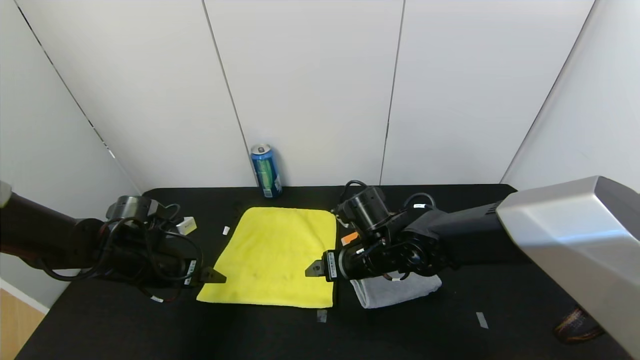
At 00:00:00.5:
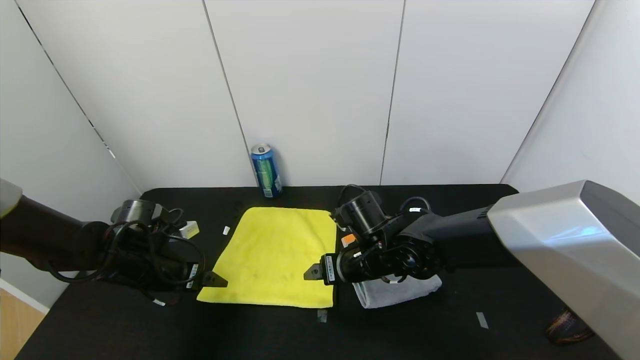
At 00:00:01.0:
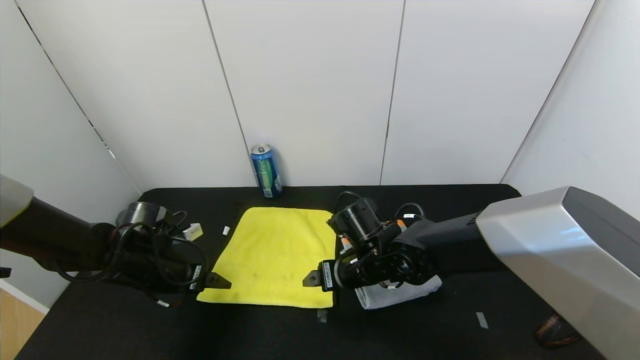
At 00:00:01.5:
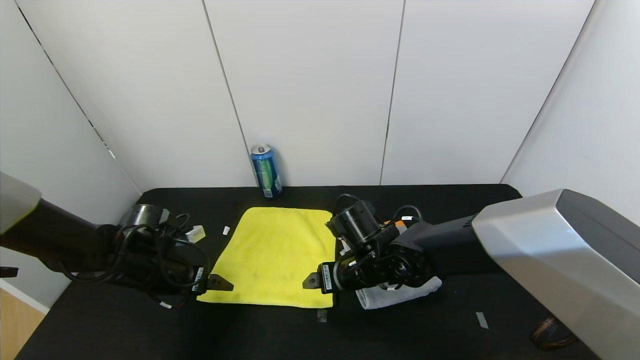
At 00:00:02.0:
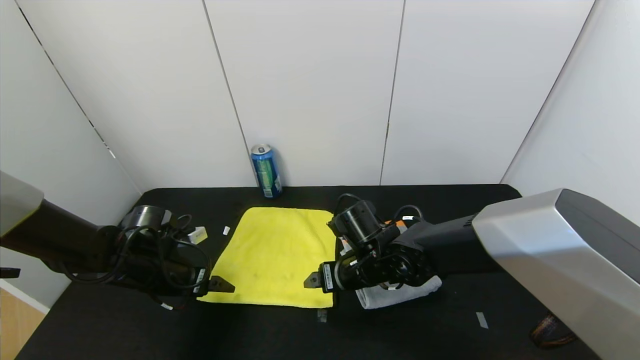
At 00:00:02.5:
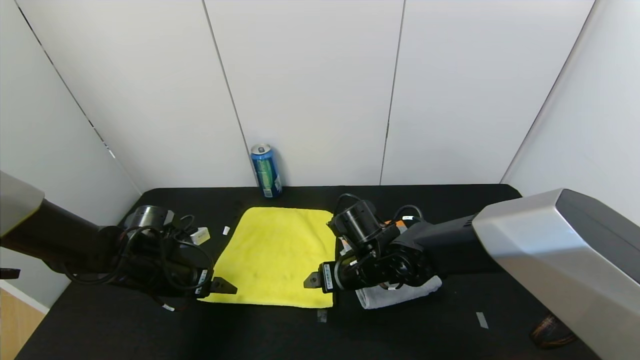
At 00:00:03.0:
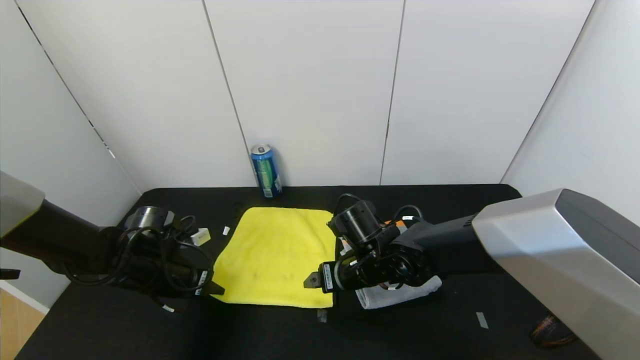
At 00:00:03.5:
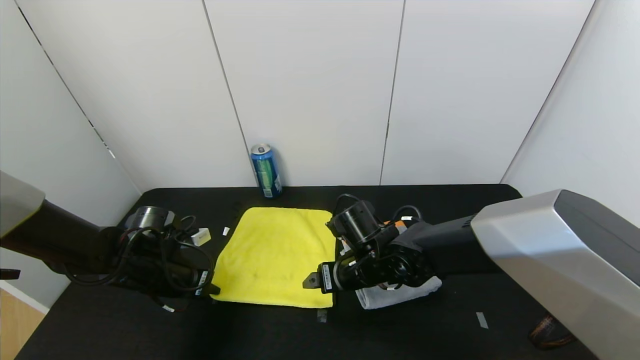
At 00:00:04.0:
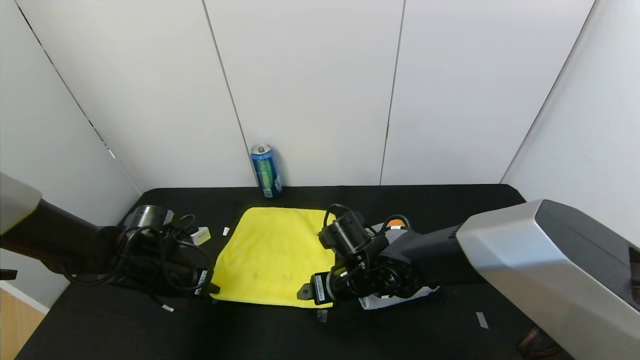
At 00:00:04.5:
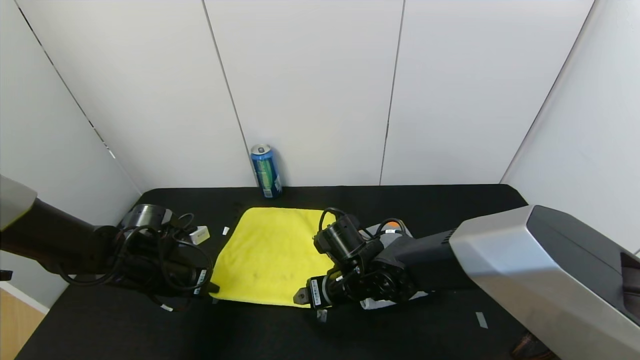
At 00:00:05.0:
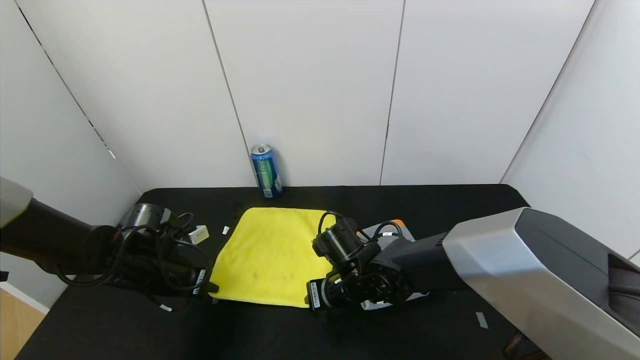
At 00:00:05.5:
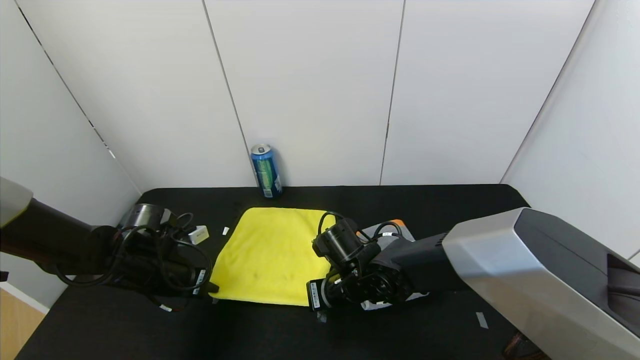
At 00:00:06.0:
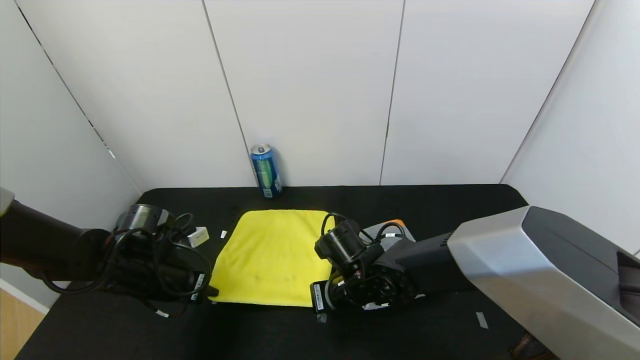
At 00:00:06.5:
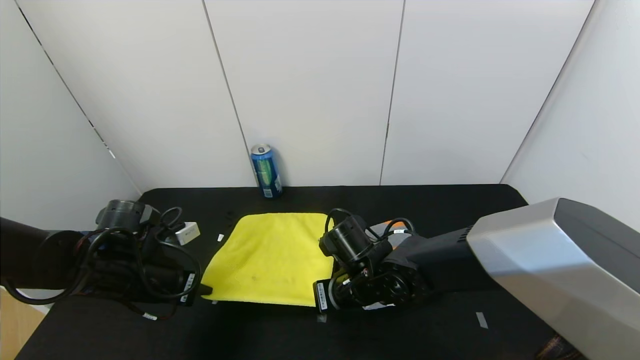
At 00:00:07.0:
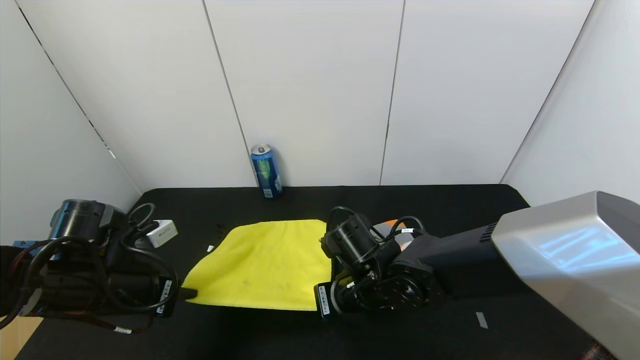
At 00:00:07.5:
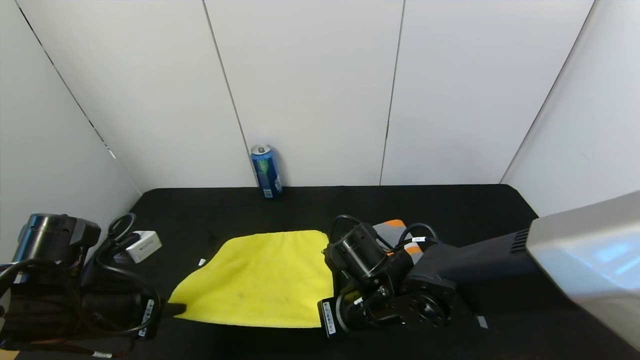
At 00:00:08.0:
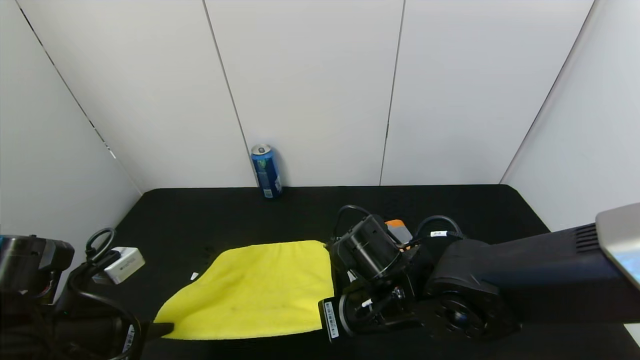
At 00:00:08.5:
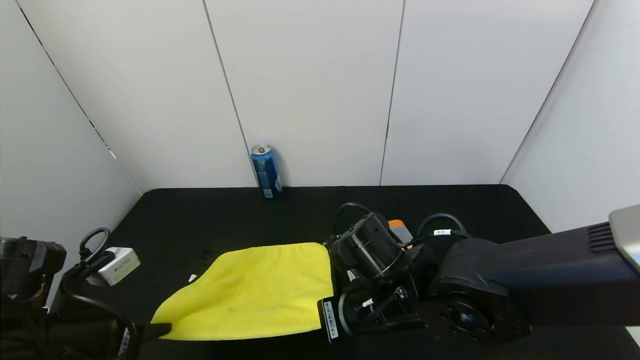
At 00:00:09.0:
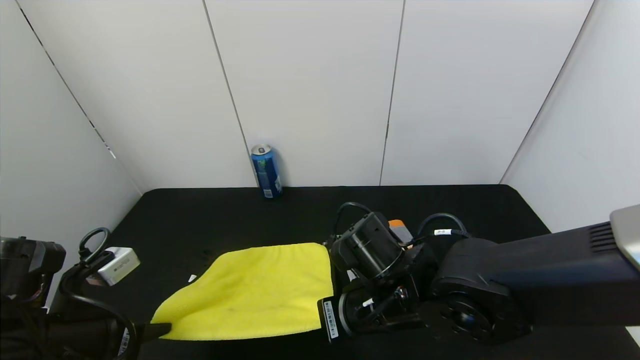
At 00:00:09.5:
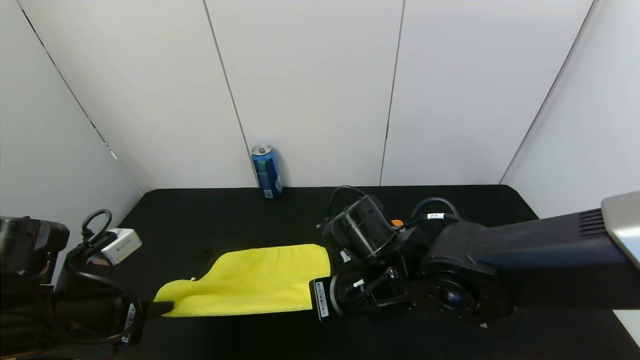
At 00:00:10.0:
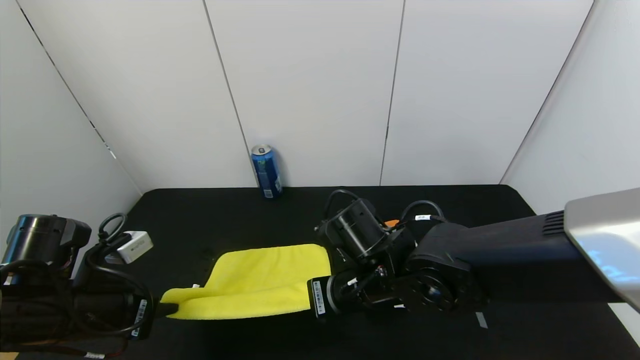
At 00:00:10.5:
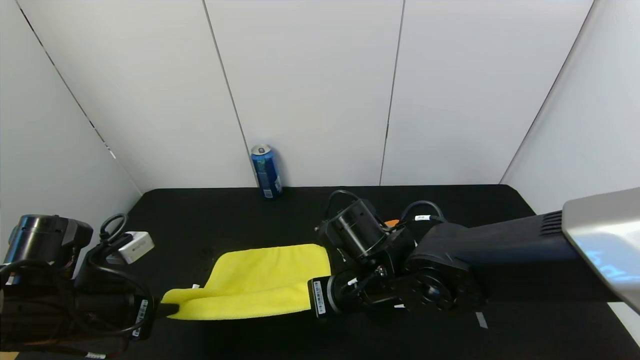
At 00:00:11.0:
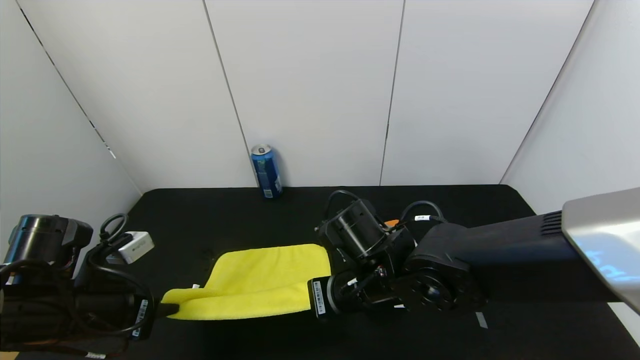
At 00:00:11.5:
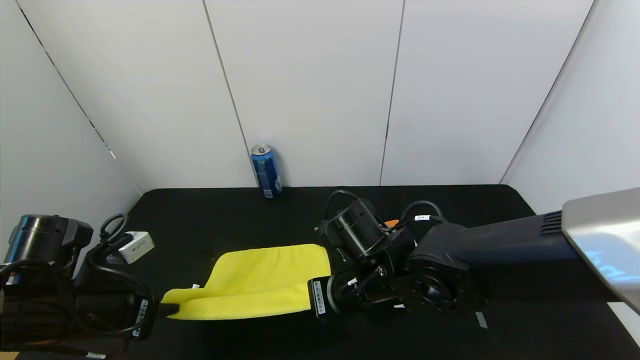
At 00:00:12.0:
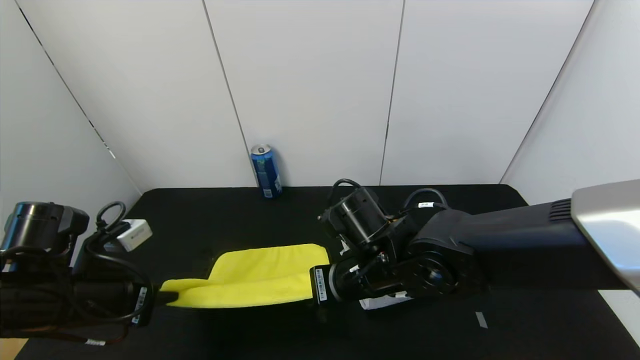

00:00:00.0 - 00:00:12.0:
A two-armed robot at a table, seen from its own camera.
Task of the whole recording: Use the gripper to fold the yellow towel and grey towel in half twice,then put the yellow towel on the grey towel.
00:00:00.0 - 00:00:02.0: The grippers make only small movements.
00:00:02.0 - 00:00:04.0: The left gripper closes its fingers.
00:00:04.0 - 00:00:06.0: The right gripper closes up.
00:00:06.0 - 00:00:08.0: The left gripper shifts roughly 10 cm backward and upward. The right gripper shifts by roughly 5 cm.
00:00:08.0 - 00:00:12.0: The grippers make only small movements.

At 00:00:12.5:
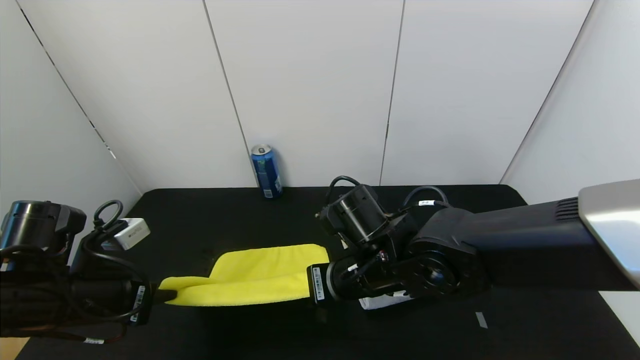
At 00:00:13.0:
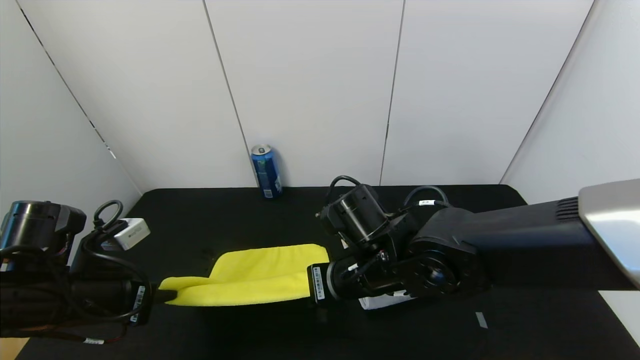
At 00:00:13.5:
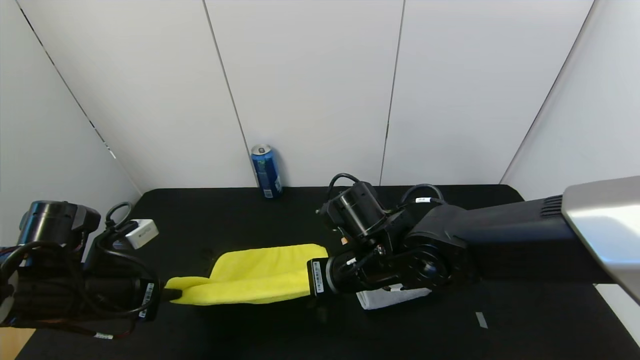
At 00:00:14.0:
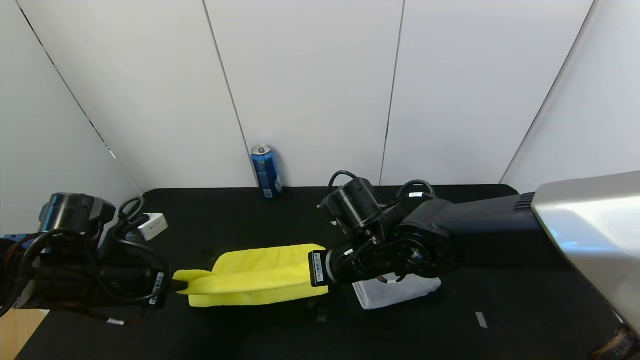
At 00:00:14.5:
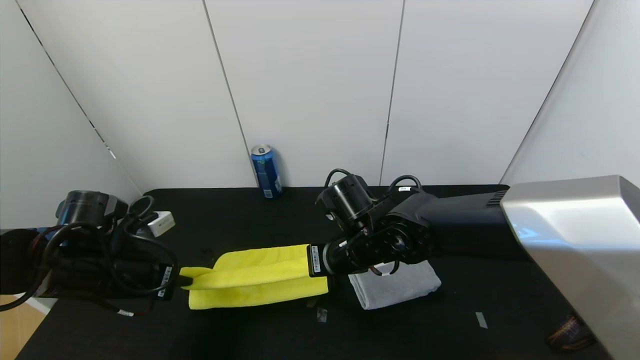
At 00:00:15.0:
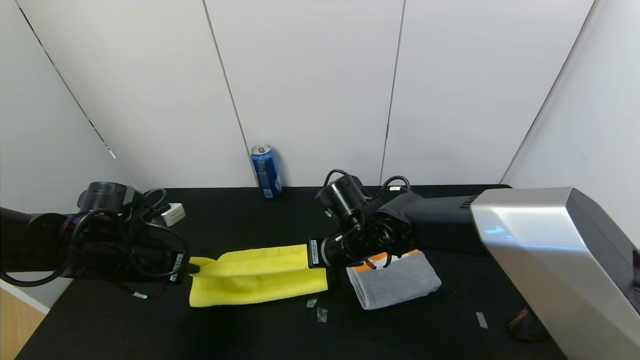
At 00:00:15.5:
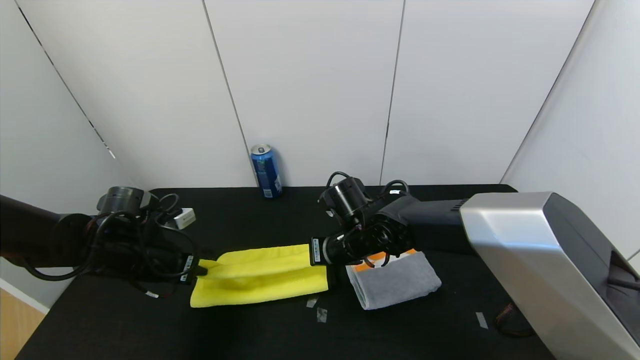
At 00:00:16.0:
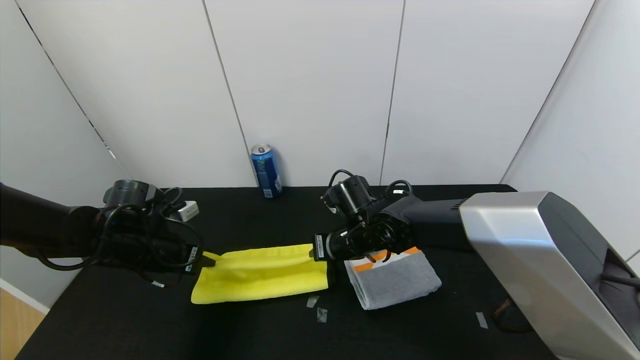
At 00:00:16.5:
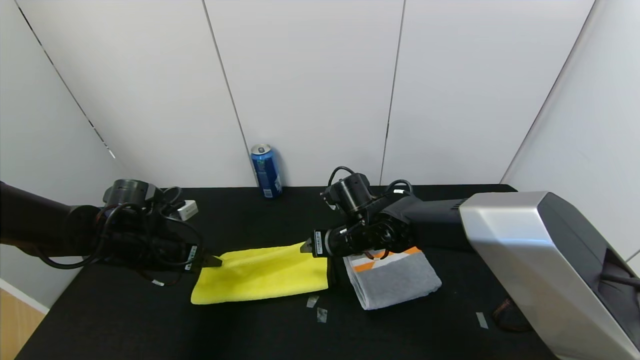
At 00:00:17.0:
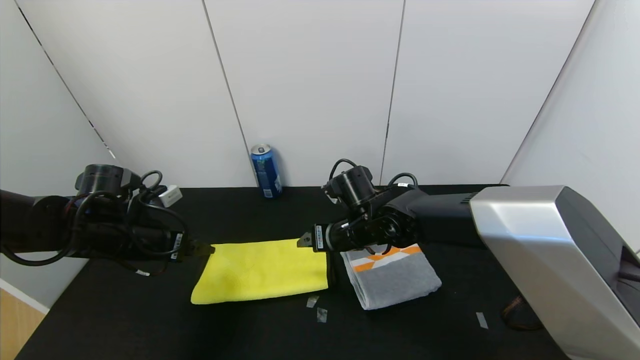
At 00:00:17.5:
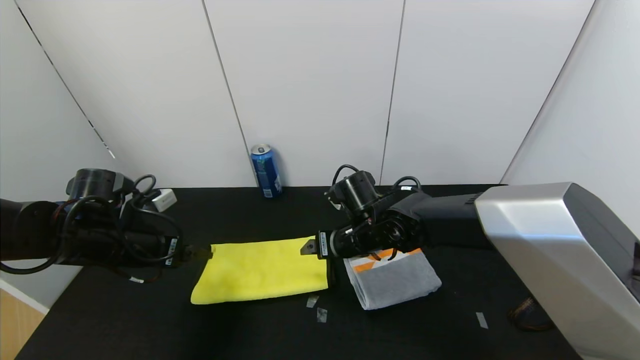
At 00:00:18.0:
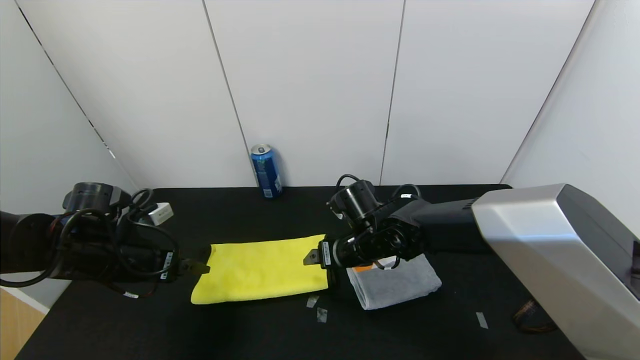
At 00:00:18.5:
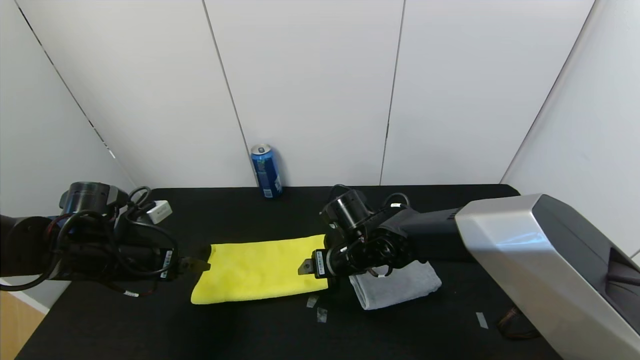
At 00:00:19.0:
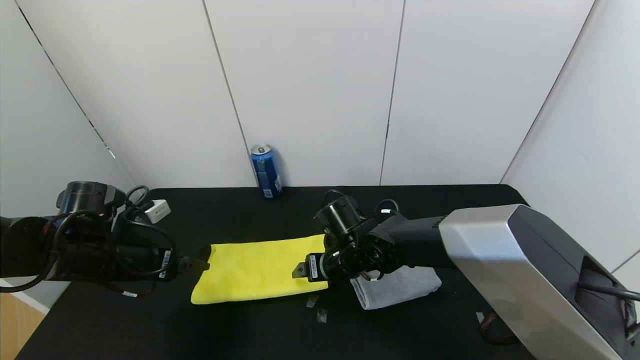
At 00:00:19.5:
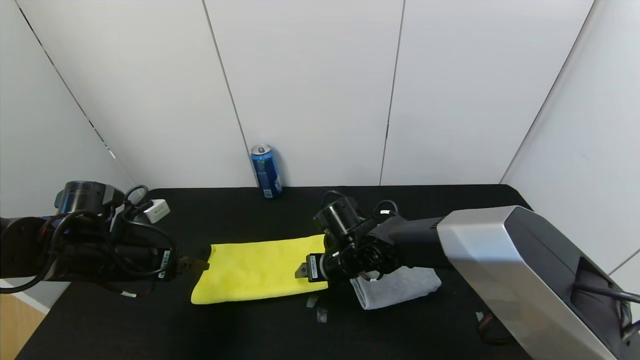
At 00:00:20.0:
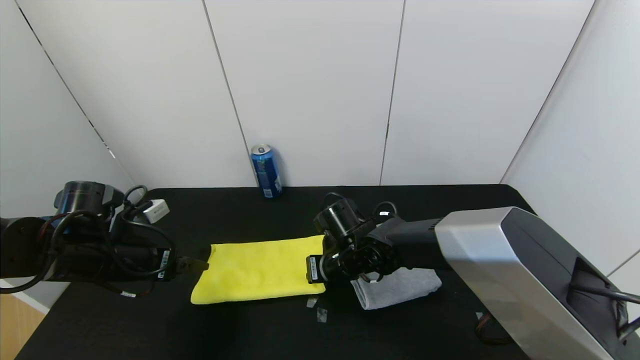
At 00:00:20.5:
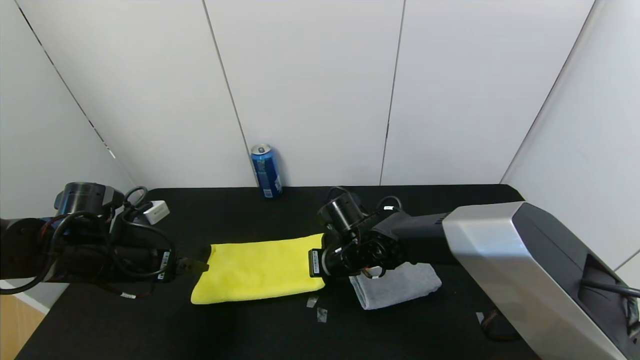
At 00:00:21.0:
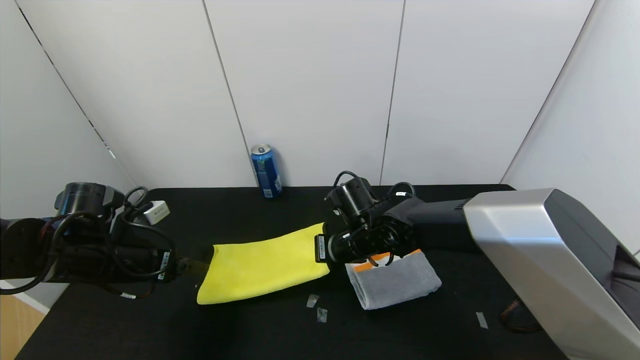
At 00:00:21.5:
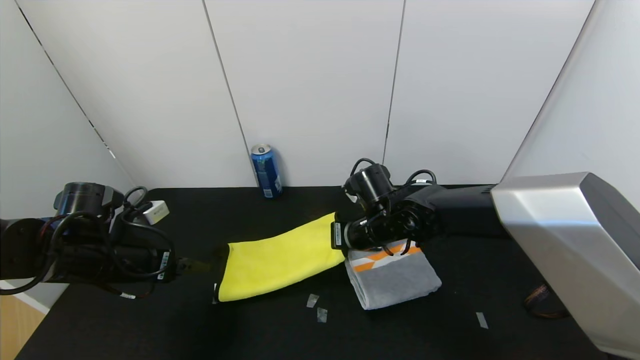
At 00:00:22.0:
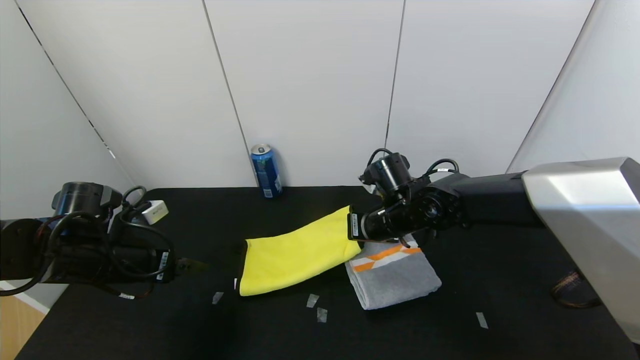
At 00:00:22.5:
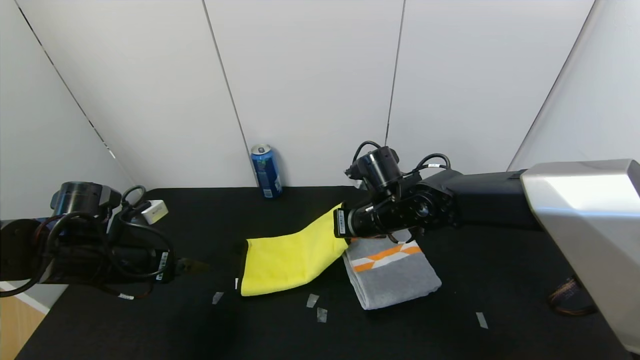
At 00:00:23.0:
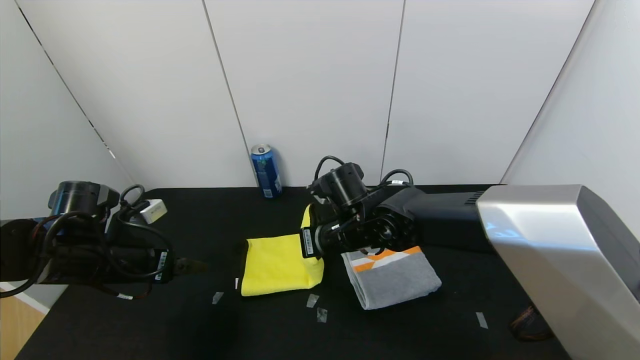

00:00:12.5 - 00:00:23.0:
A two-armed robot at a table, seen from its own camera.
Task of the whole recording: Use the gripper to fold the yellow towel and grey towel in half twice,then put the yellow towel on the grey towel.
Step, 00:00:12.5 - 00:00:16.5: Fold the yellow towel upwards with the left gripper.
Step, 00:00:12.5 - 00:00:16.5: Fold the yellow towel upwards with the right gripper.
00:00:12.5 - 00:00:14.5: The two grippers go roughly 5 cm forward.
00:00:14.5 - 00:00:16.5: The two grippers go approximately 5 cm forward. The right gripper opens up; the left gripper opens.
00:00:16.5 - 00:00:19.0: There are only small adjustments of the grippers.
00:00:19.0 - 00:00:21.0: The right gripper closes.
00:00:21.0 - 00:00:23.0: The right gripper moves some 5 cm to the right and comes back.
